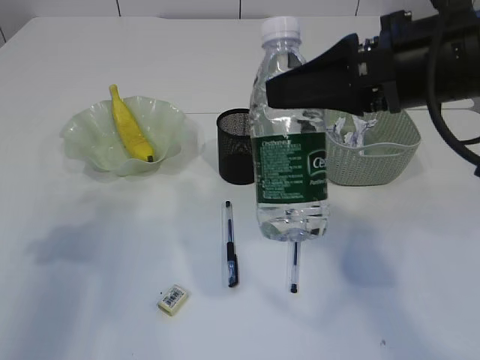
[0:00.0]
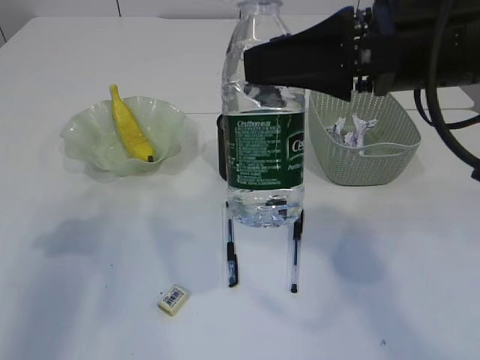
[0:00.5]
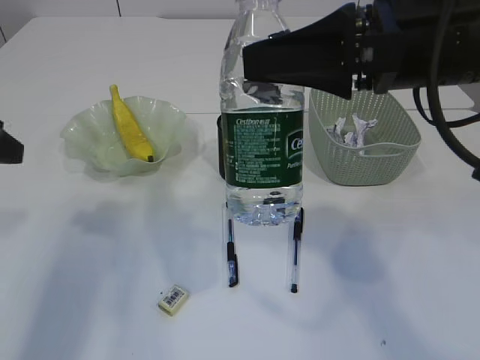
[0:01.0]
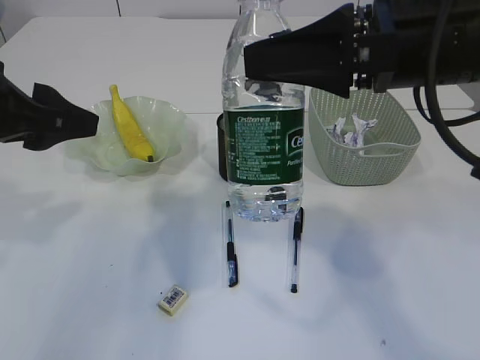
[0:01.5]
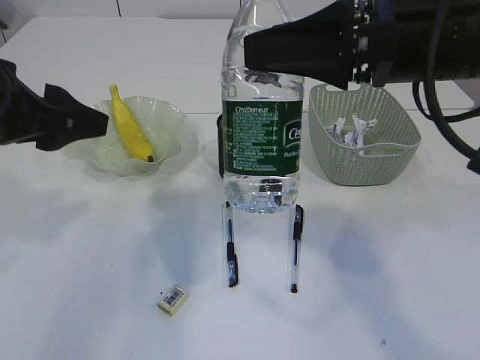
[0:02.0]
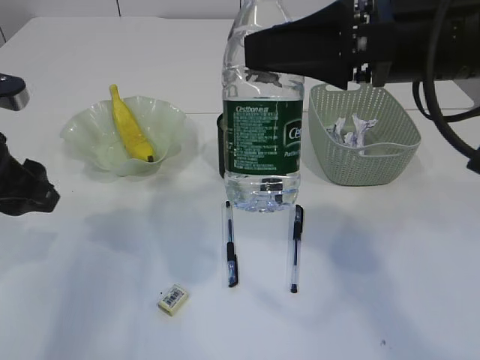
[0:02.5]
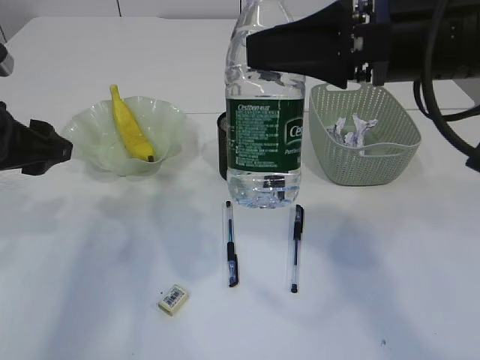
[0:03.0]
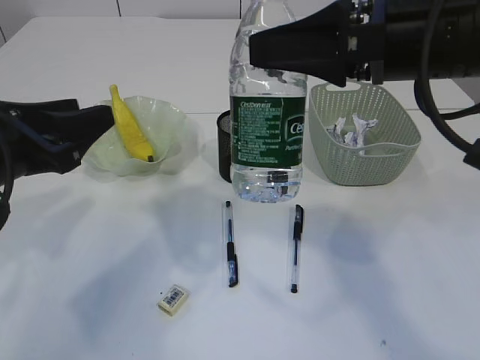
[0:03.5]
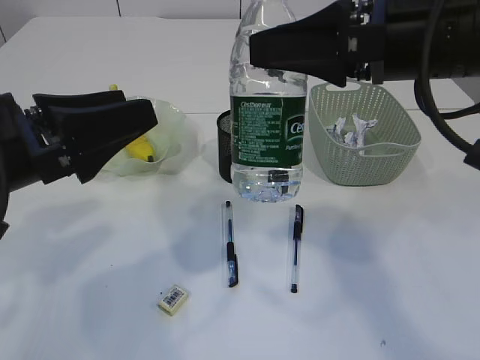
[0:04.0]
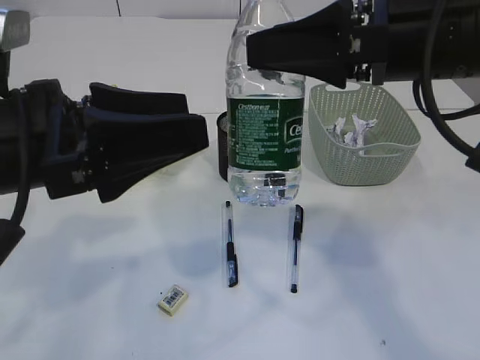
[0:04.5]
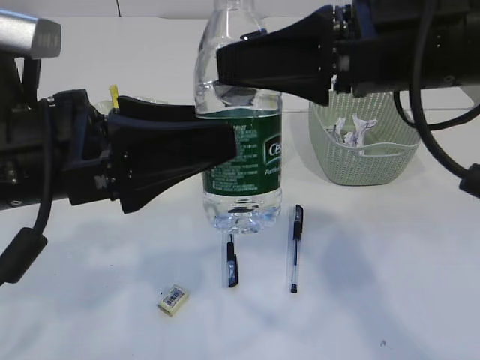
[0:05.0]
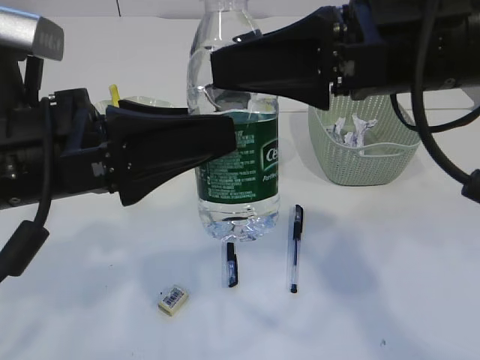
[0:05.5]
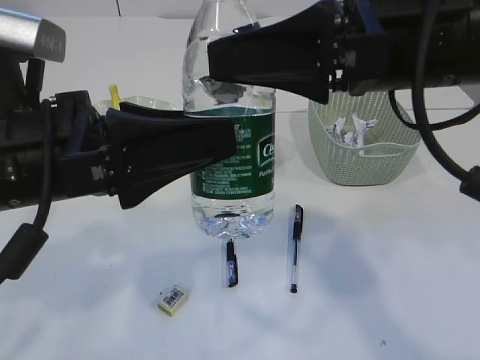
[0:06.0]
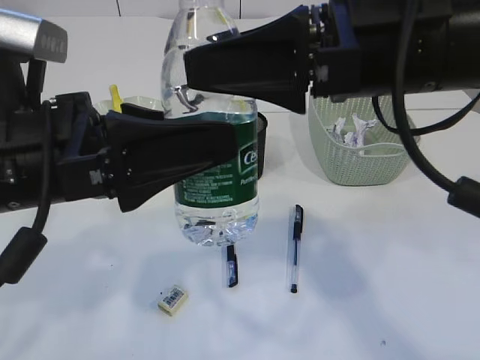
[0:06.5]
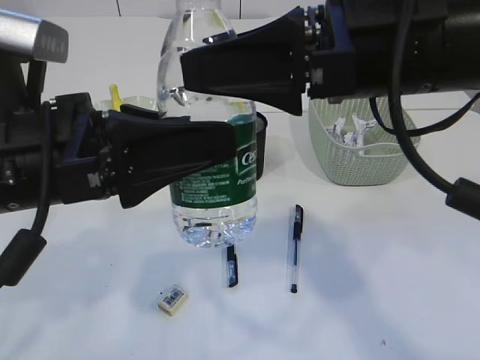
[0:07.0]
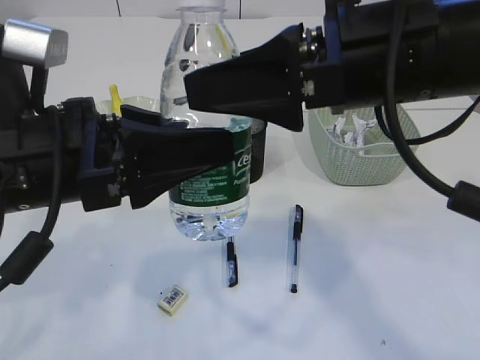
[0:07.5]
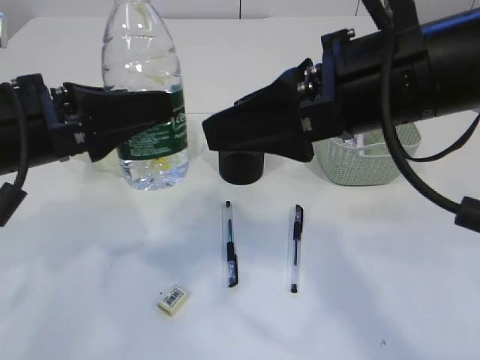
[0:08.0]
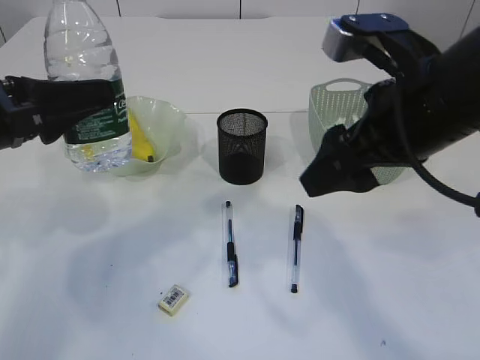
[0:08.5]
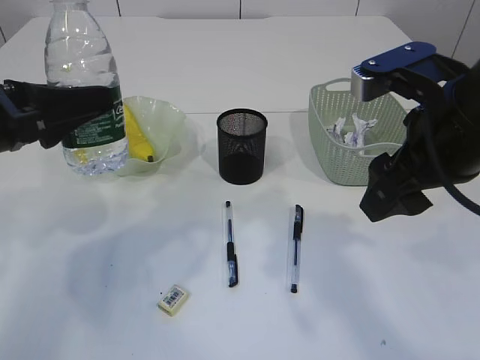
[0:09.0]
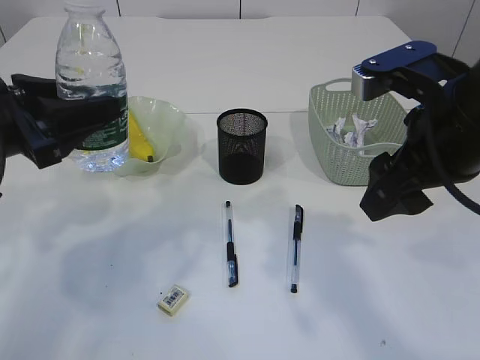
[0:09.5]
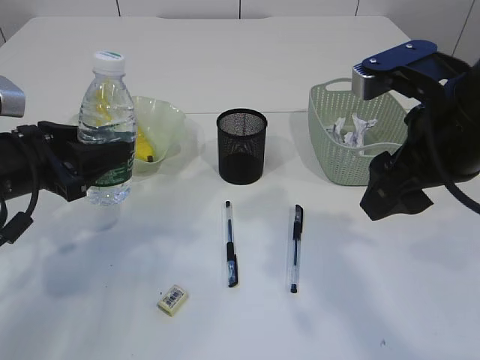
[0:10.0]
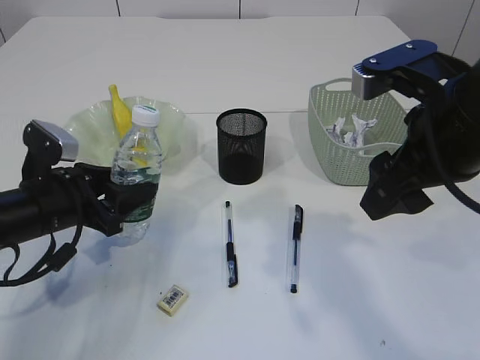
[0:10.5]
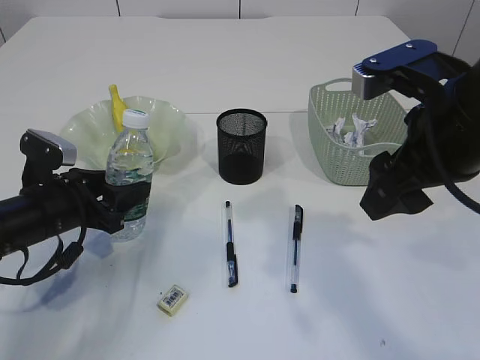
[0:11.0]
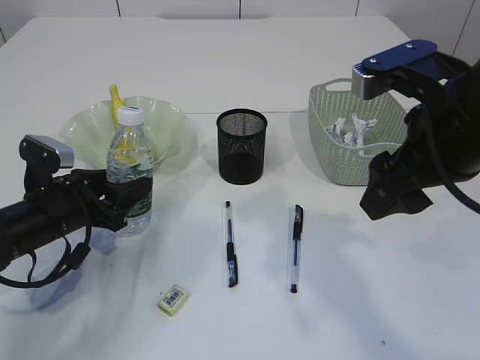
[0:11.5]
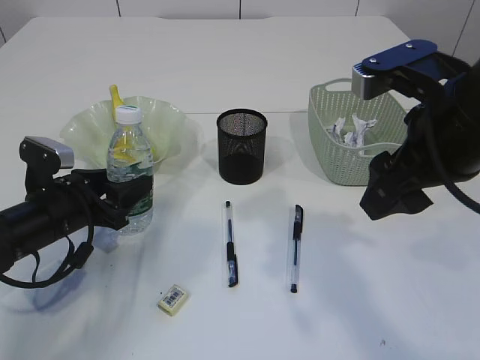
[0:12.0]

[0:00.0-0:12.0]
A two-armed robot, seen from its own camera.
Step, 0.0 to 7.5 s: transfer the bottle to the left arm.
0.0 to 2.0 s: The left gripper heads to the right, covering roughly 10 cm.
2.0 to 4.0 s: The left gripper ends up some 5 cm from where it was.
4.0 to 6.0 s: The left gripper heads to the right, covering approximately 5 cm.
6.0 to 8.0 s: The right gripper opens. Meanwhile the left gripper changes place by about 5 cm, and closes up.
8.0 to 10.0 s: The left gripper travels downward, to the left and forward by roughly 10 cm. Meanwhile the right gripper goes about 5 cm to the right.
10.0 to 12.0 s: The left gripper goes about 10 cm downward.

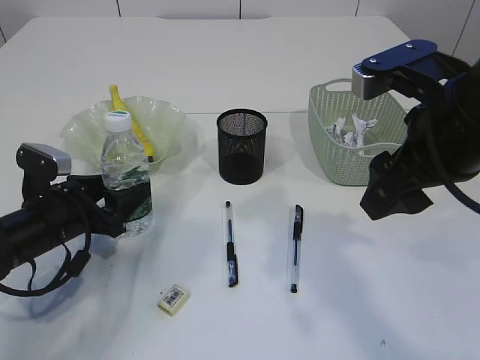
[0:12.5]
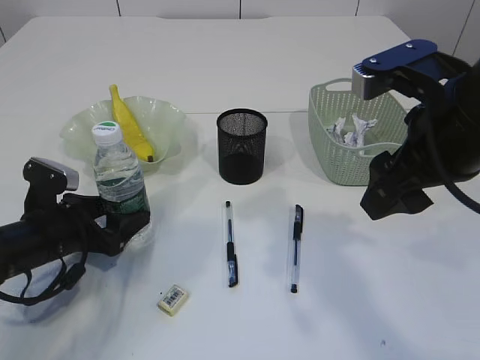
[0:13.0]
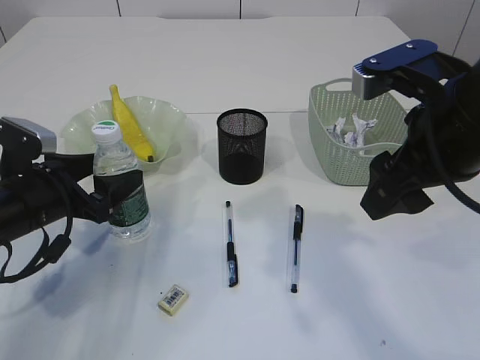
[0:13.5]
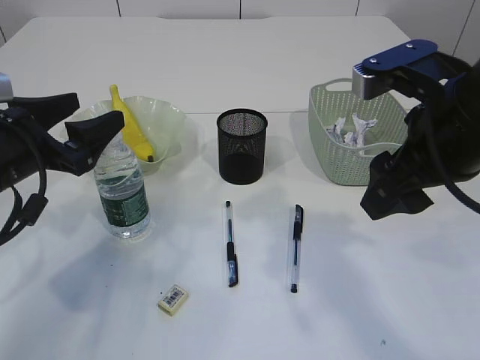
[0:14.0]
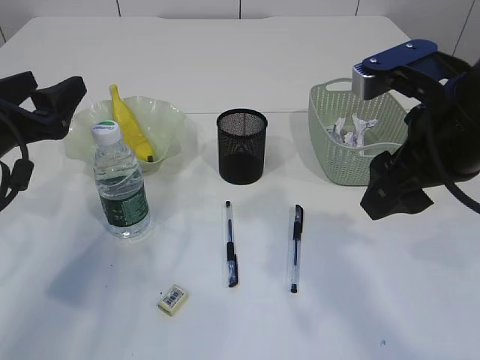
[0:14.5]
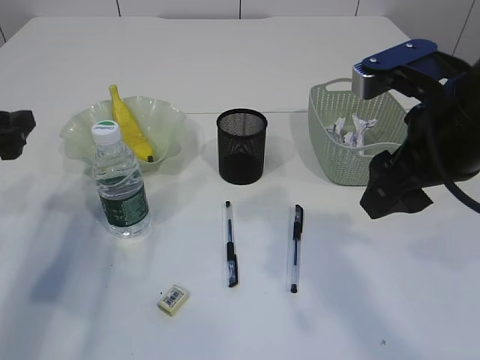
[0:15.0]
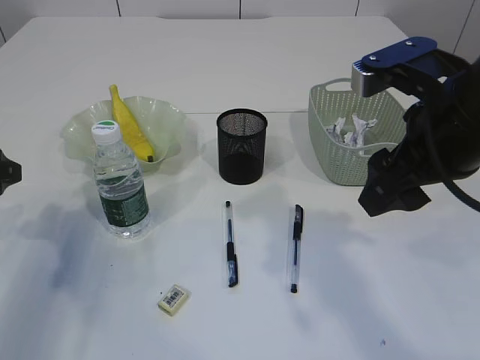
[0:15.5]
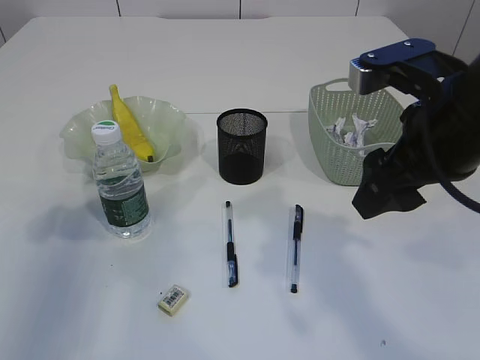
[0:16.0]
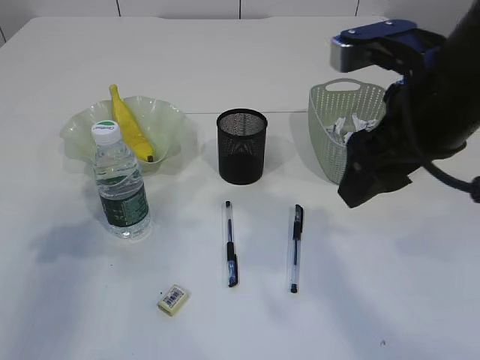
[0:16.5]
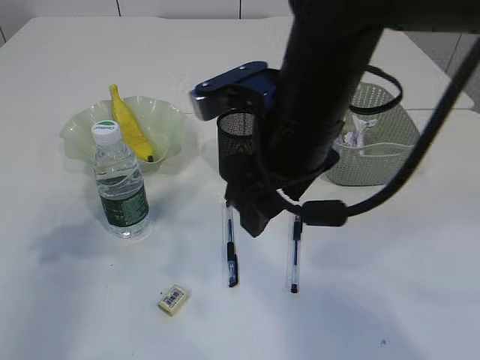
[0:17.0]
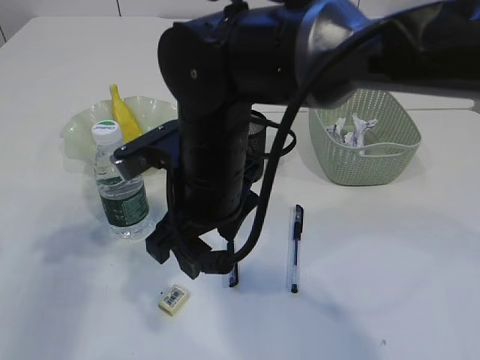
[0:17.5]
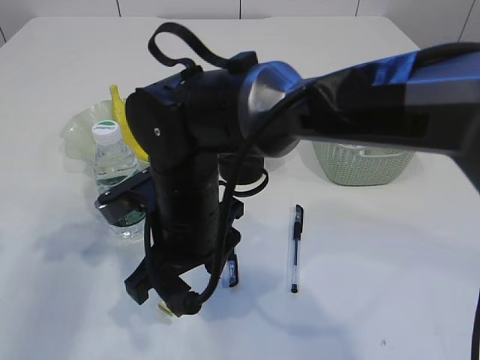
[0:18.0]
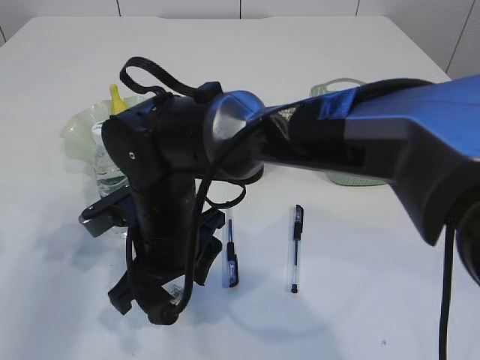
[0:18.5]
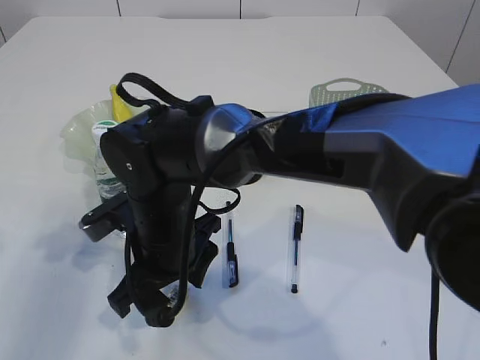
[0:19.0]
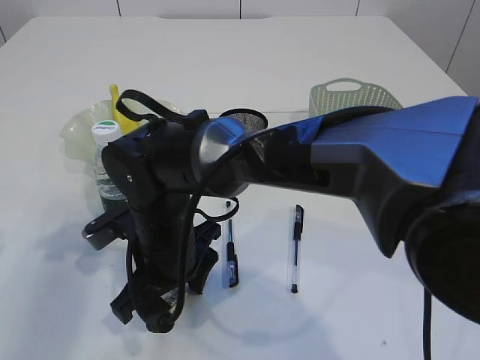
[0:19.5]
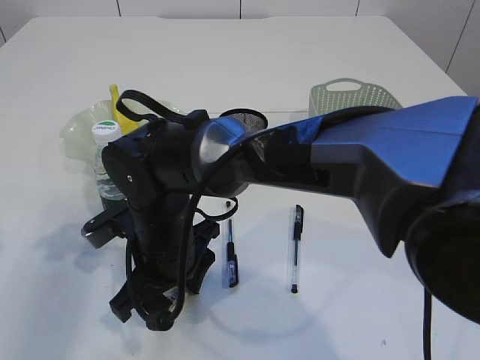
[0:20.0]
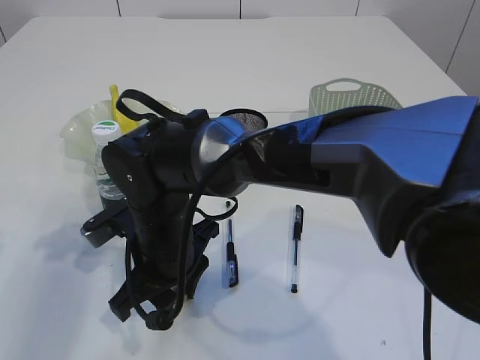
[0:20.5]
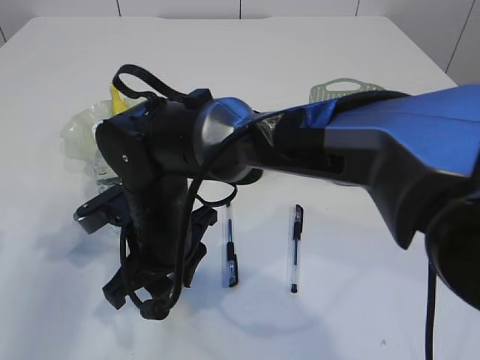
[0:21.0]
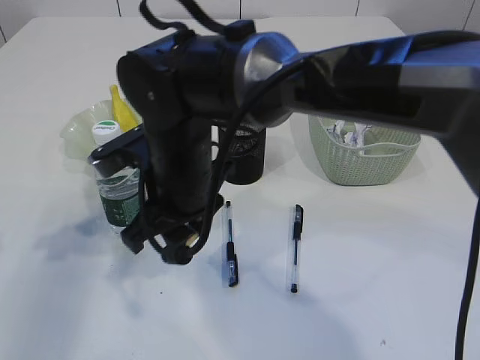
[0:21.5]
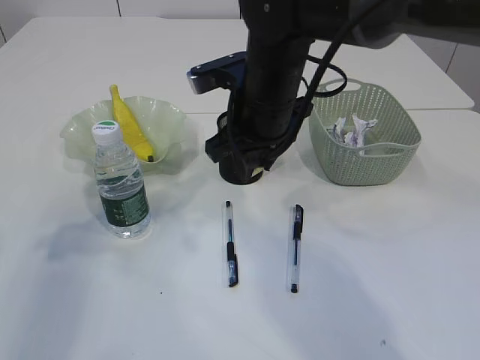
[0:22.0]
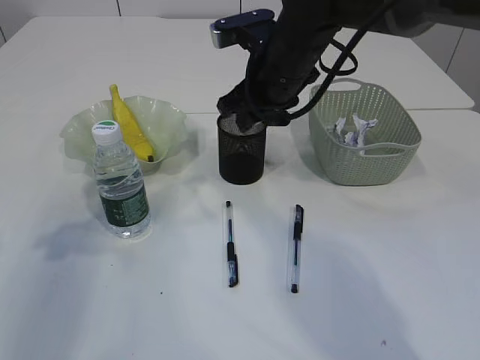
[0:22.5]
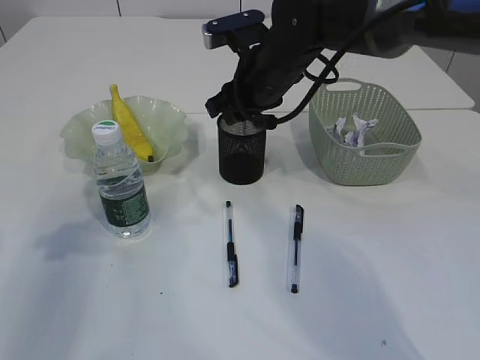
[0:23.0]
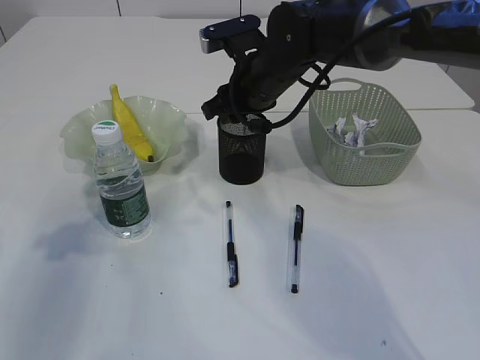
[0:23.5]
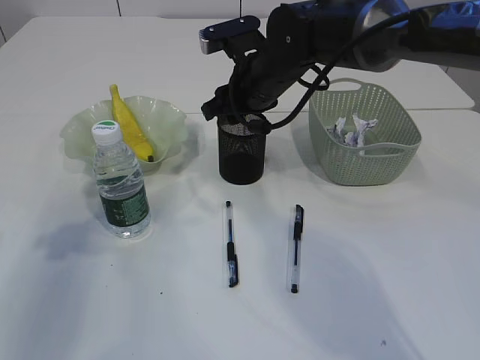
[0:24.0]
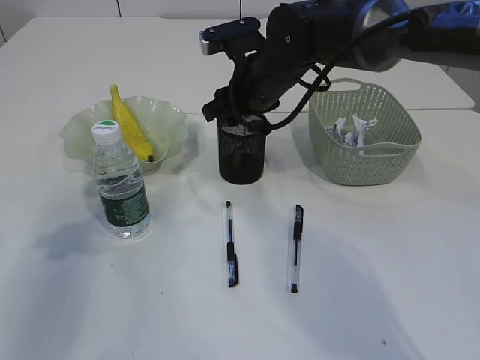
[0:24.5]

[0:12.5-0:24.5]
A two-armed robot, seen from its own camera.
Step, 14.0 to 21.0 s: Pick up the eraser.
12.5 to 14.5 s: The left gripper heads upward, covering some 15 cm.
14.5 to 16.5 s: The left gripper shifts roughly 5 cm upward.
16.5 to 18.5 s: The right gripper goes approximately 25 cm to the left and downward.
18.5 to 20.5 s: The right gripper closes its fingers.
20.5 to 22.5 s: The right gripper heads to the right, upward and forward, covering about 25 cm.
22.5 to 24.5 s: There are only small adjustments of the grippers.

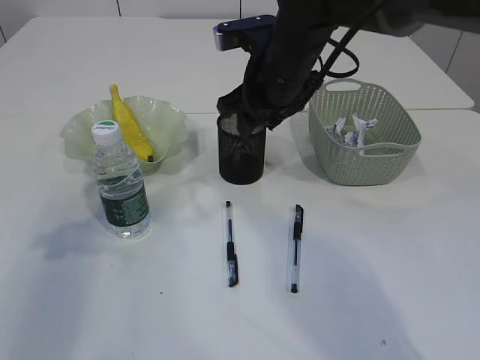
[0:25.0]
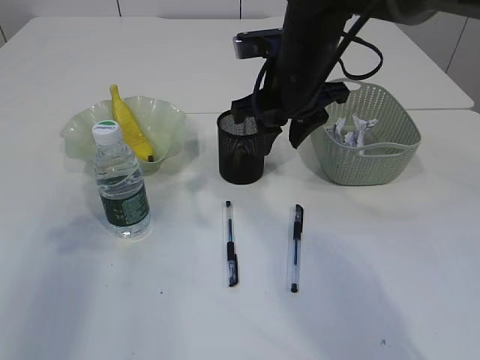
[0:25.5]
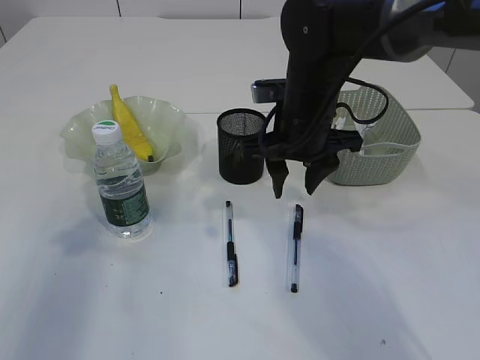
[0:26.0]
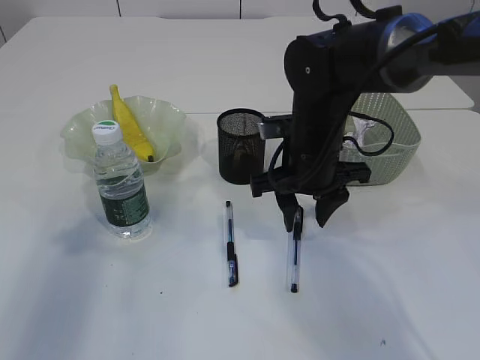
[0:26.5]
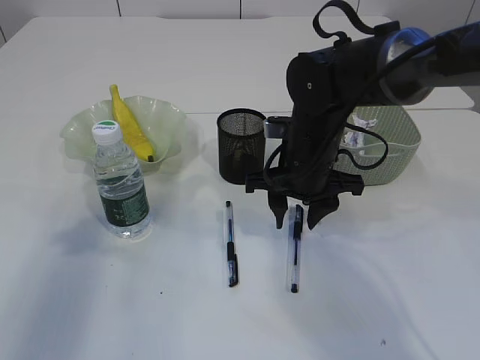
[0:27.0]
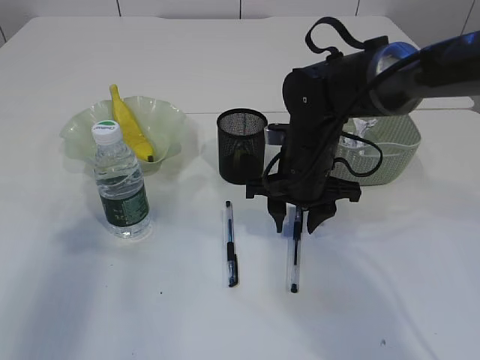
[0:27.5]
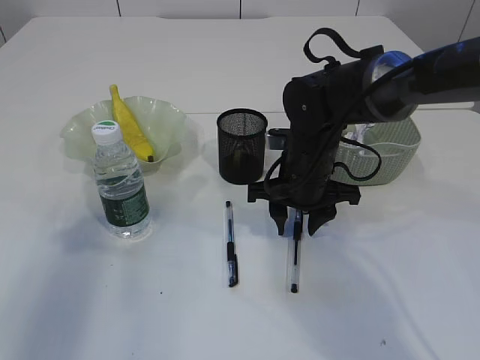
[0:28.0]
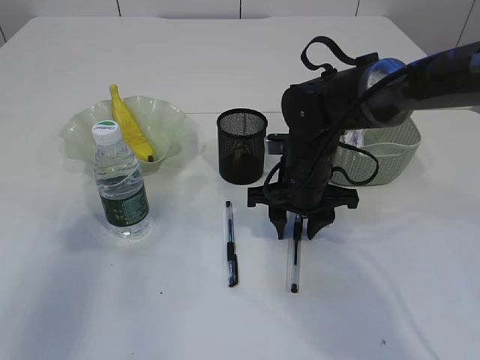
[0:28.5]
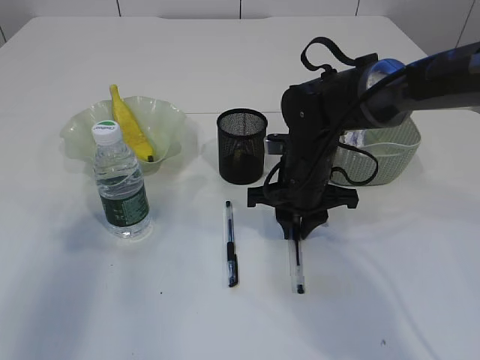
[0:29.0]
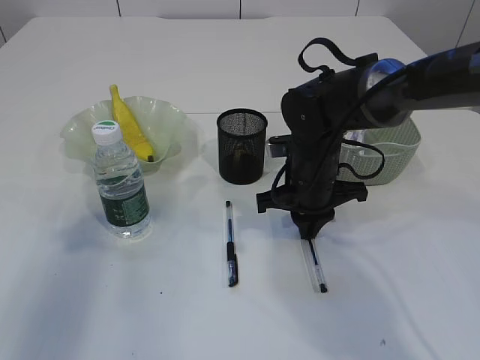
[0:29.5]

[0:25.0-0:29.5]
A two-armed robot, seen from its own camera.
25.0 to 27.0 s: The right gripper travels downward and backward by roughly 10 cm. The left gripper ends up about 5 cm from where it was.
27.0 to 29.5 s: The right gripper closes.
